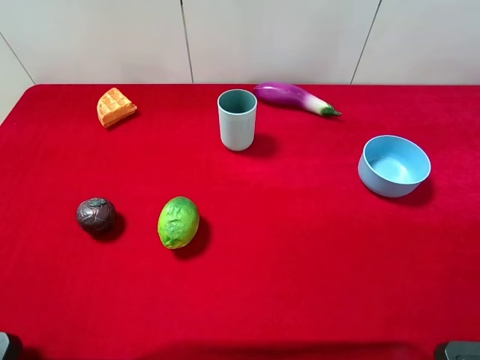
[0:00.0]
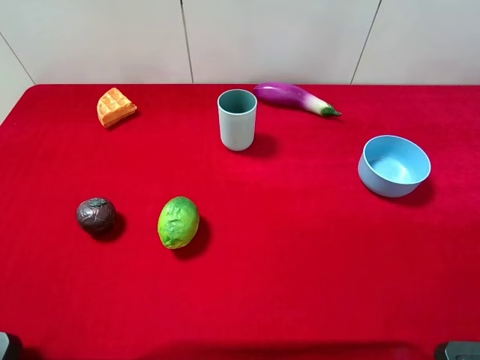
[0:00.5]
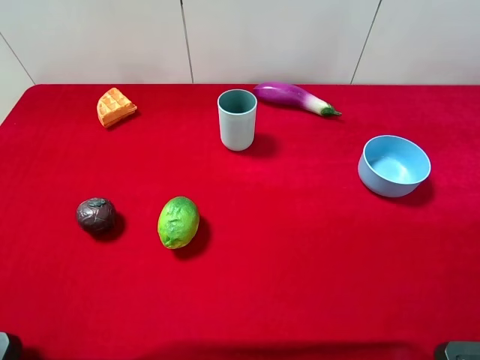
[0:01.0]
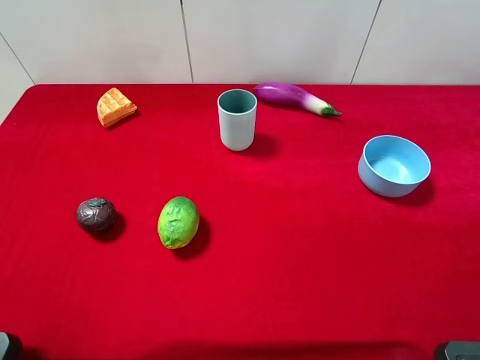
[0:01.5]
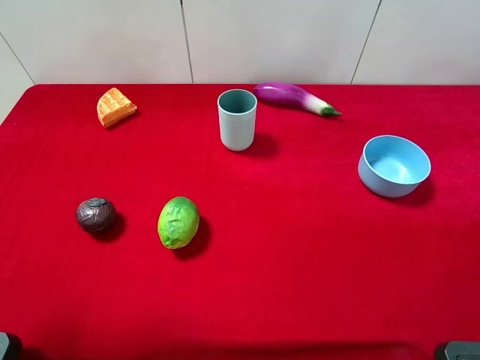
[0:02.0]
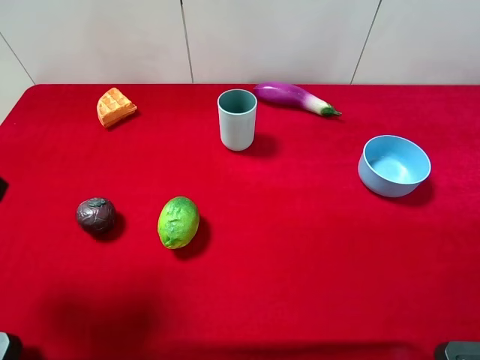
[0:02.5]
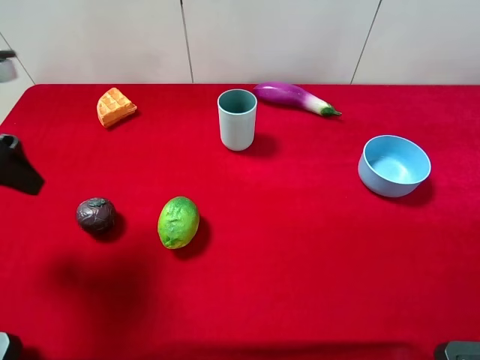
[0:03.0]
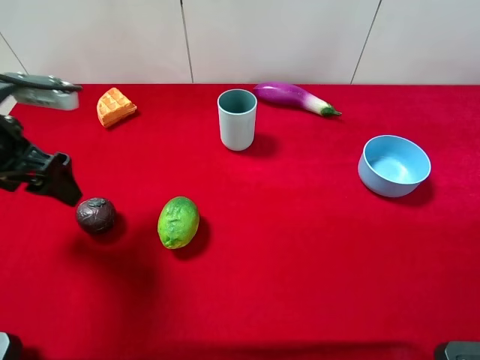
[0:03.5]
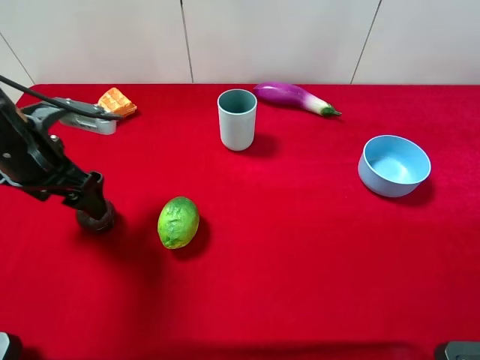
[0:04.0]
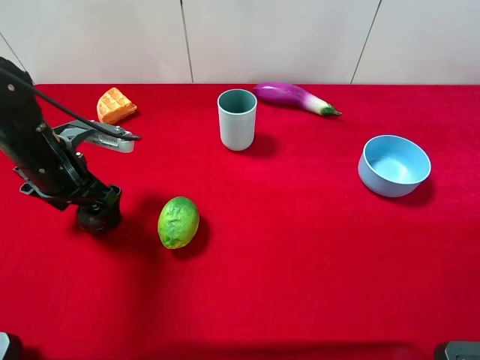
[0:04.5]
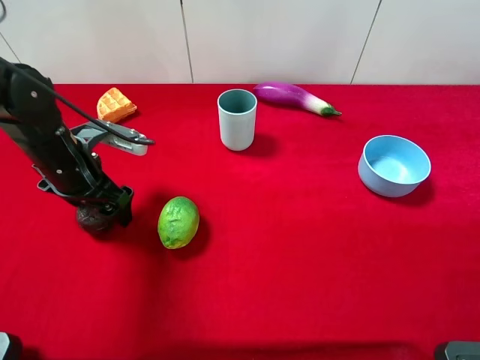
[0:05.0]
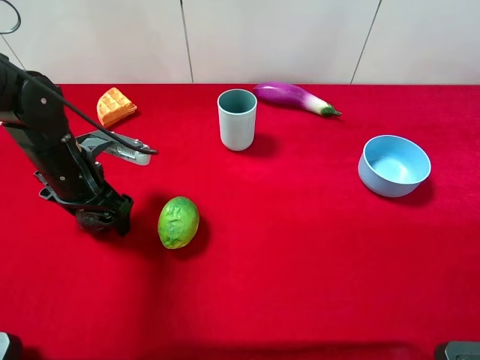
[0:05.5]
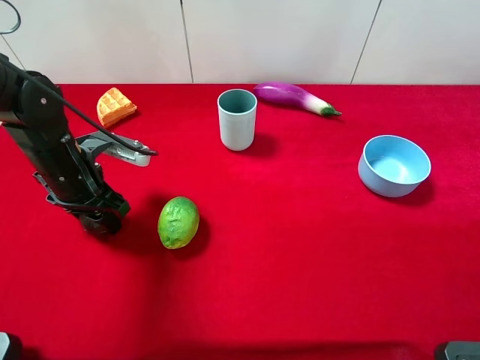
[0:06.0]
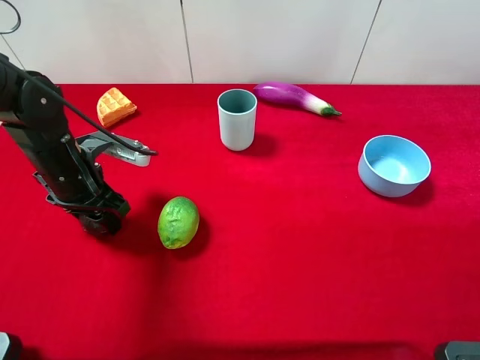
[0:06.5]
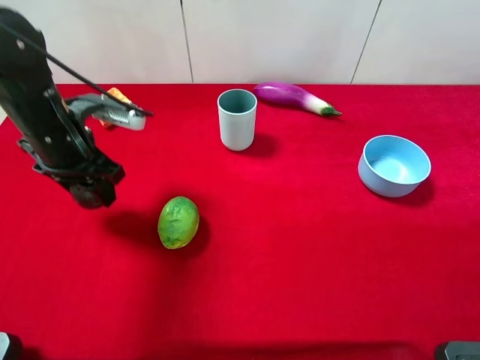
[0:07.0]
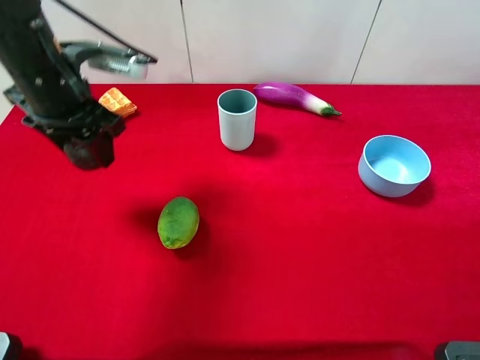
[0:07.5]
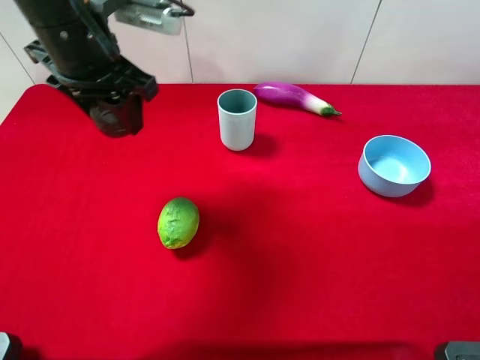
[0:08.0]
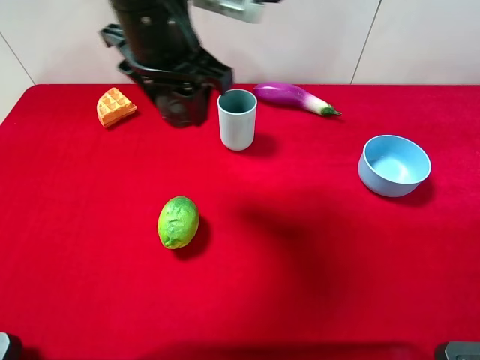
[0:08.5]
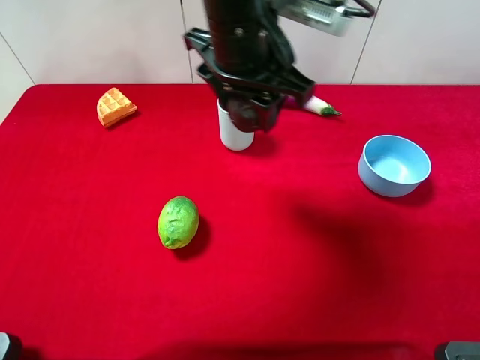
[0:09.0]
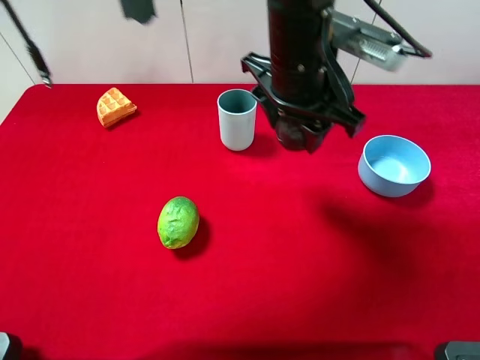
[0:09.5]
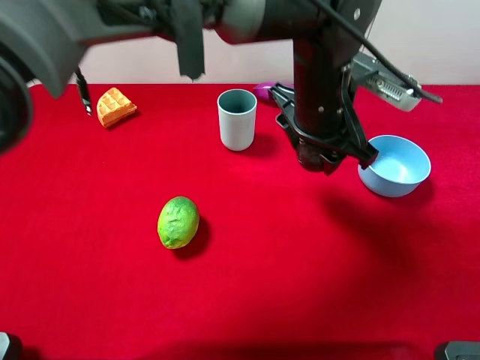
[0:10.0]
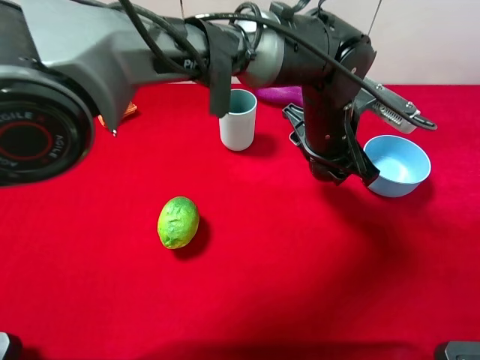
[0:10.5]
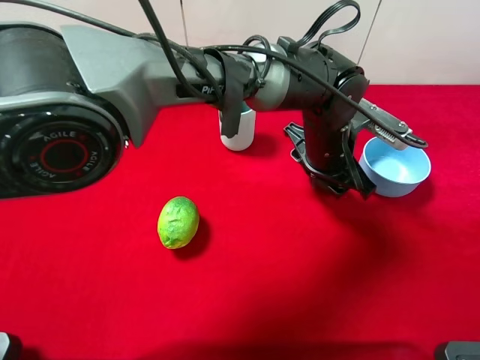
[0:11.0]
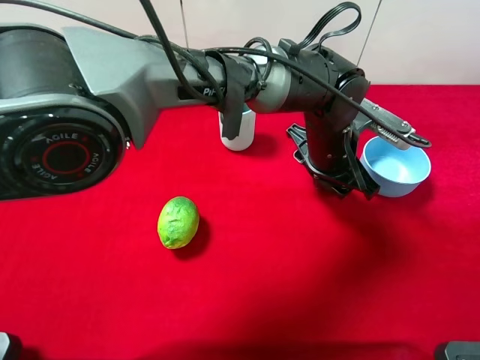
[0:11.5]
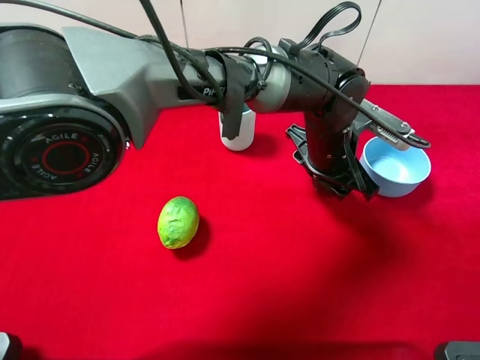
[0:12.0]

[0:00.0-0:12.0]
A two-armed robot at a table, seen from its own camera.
Task of the whole recording: the gripper move the object.
Step, 0.0 to 6.0 s: Grasp the mangosteen with the left gripper.
2.0 to 4.0 s: The left gripper goes roughly 20 cm forward and downward.
4.0 to 6.0 s: The left gripper travels downward by roughly 5 cm, and closes.
6.0 to 8.0 s: The left gripper travels upward and to the right by roughly 20 cm.
8.0 to 10.0 s: The left gripper heads to the right, covering approximately 25 cm.
10.0 to 12.0 s: The left gripper is displaced downward by some 10 cm.

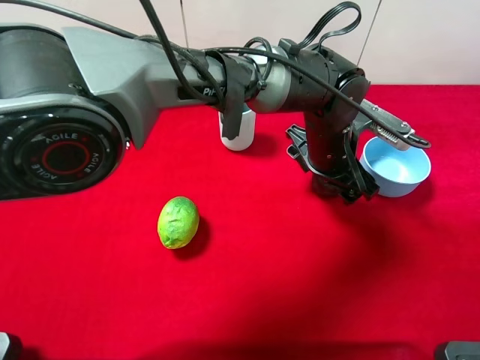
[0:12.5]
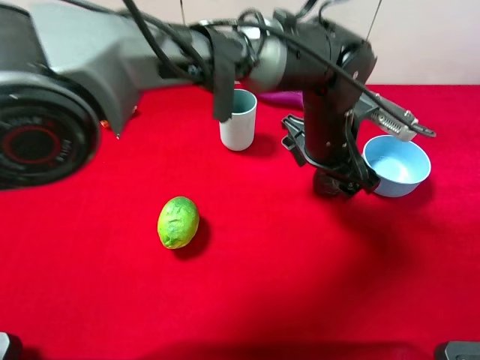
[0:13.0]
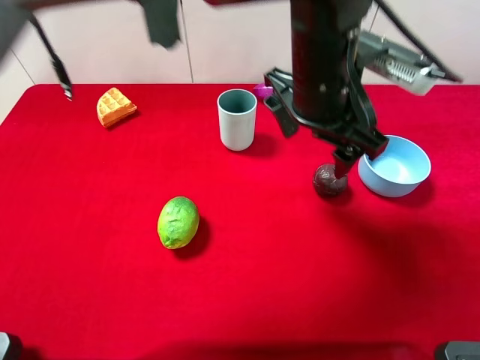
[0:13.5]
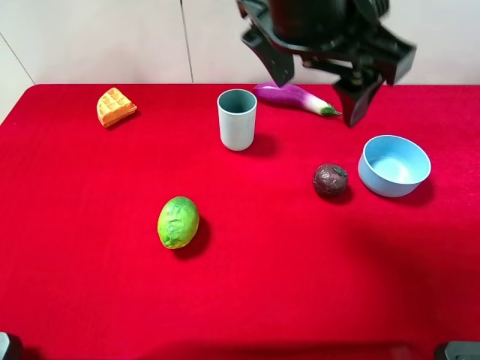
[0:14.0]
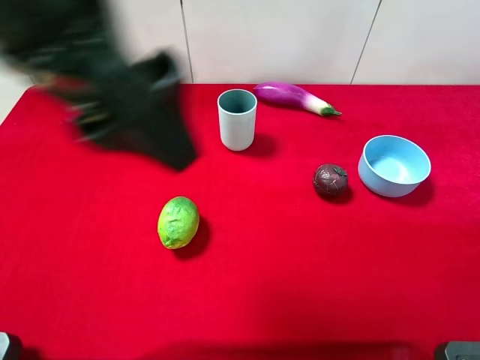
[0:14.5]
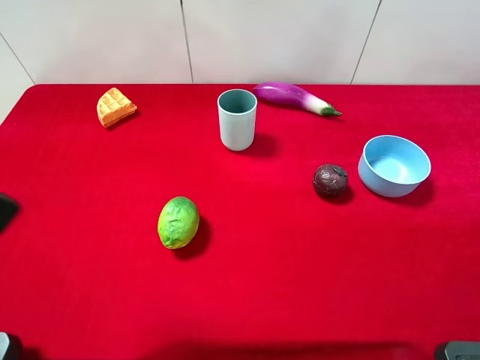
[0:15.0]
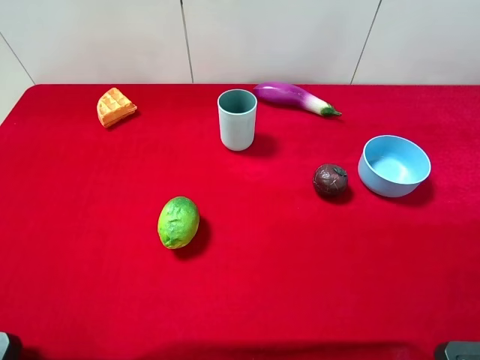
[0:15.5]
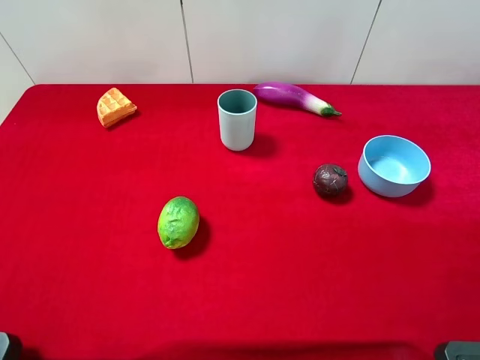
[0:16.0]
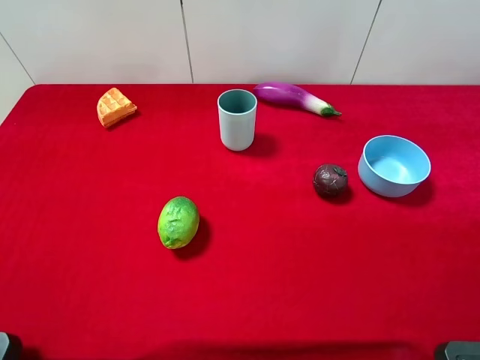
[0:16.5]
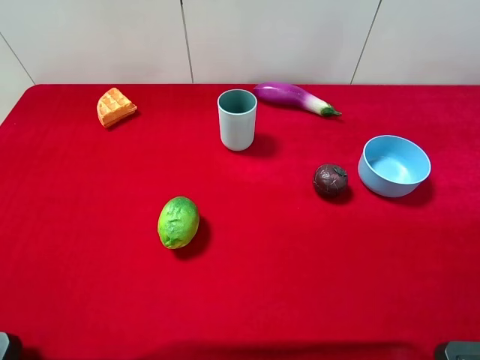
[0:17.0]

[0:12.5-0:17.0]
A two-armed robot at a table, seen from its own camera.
Task of the whole recording: the gripper move the object.
12.5 to 14.5 s: The left gripper is displaced upward, to the left and backward by some 35 cm.
14.5 to 17.0 s: The left gripper moves to the left, backward and downward, about 25 cm.

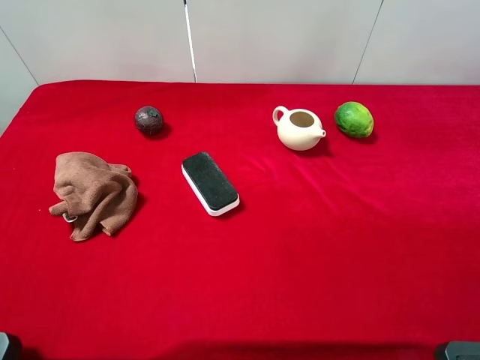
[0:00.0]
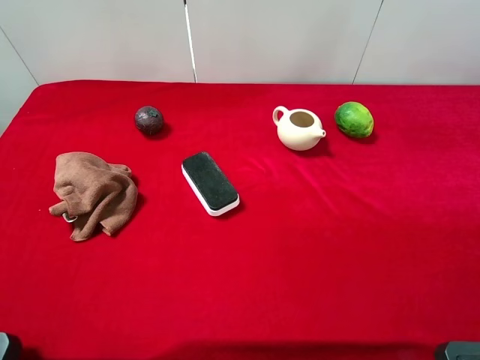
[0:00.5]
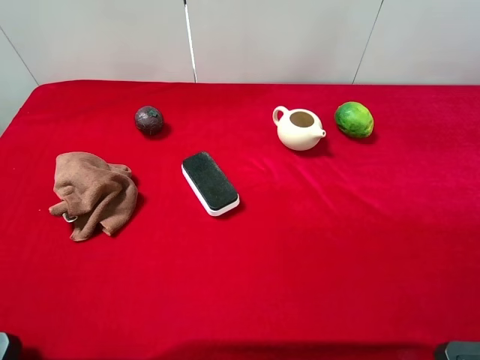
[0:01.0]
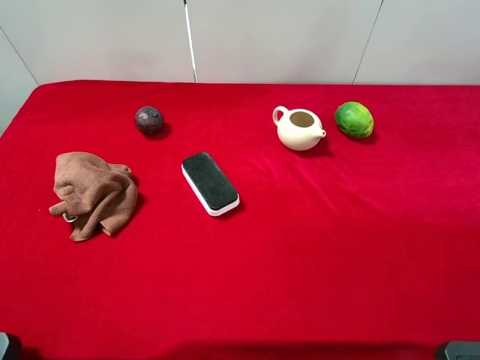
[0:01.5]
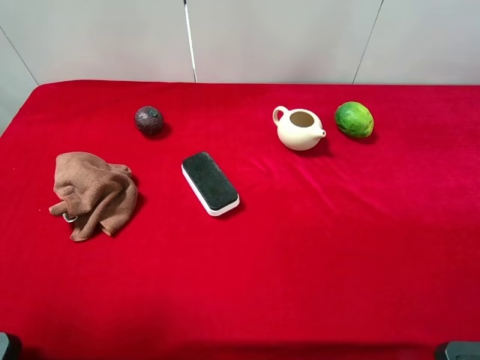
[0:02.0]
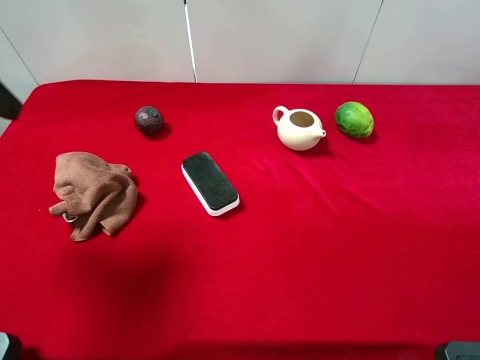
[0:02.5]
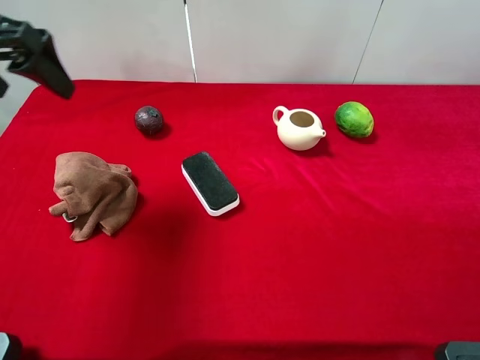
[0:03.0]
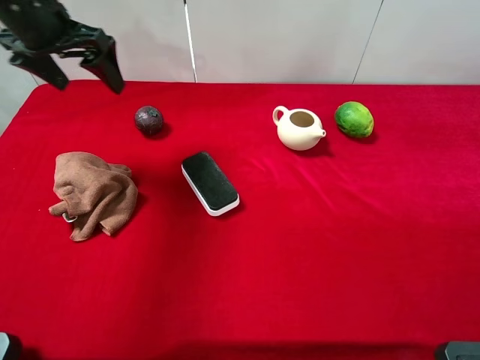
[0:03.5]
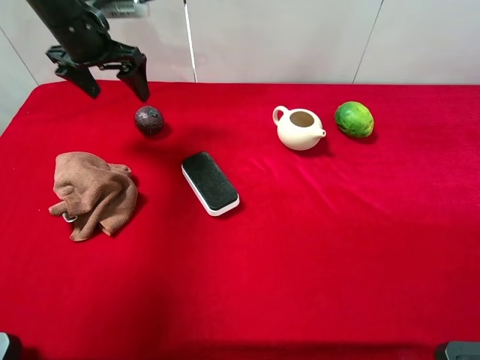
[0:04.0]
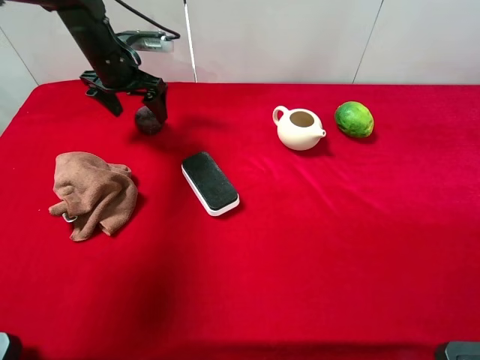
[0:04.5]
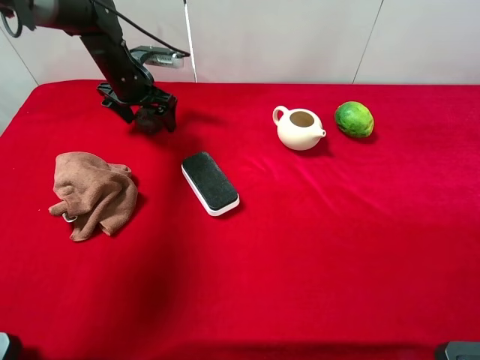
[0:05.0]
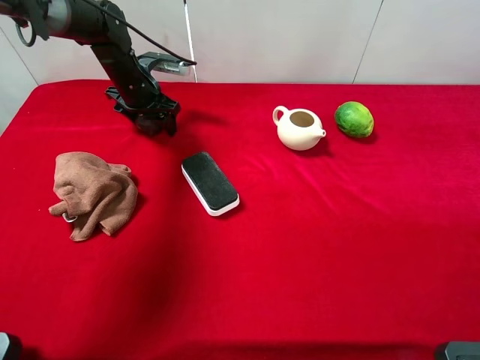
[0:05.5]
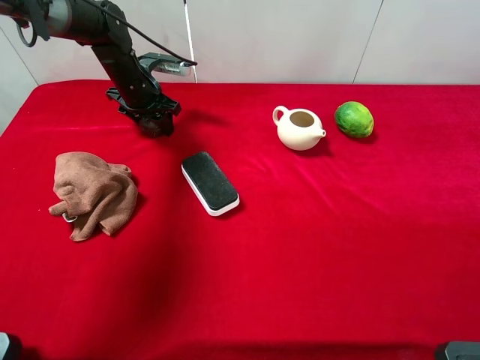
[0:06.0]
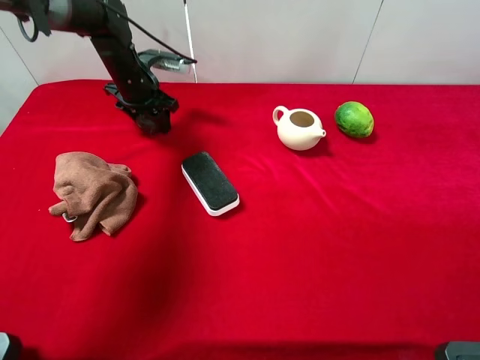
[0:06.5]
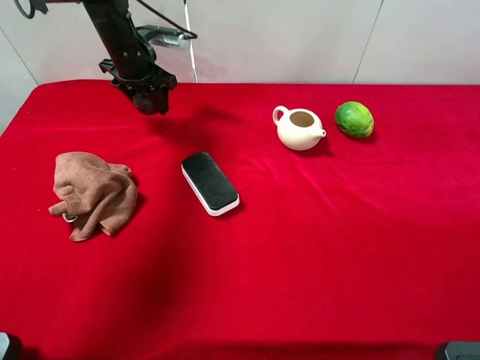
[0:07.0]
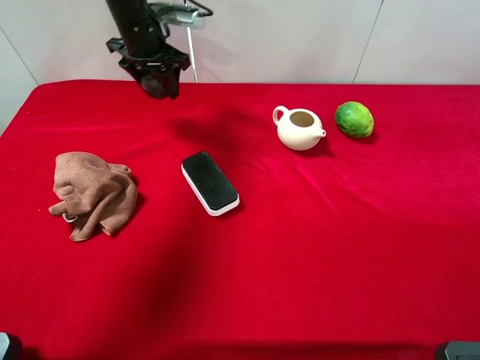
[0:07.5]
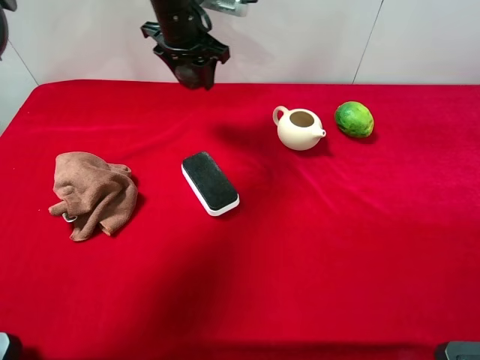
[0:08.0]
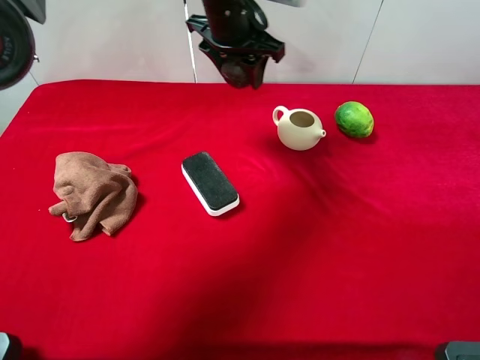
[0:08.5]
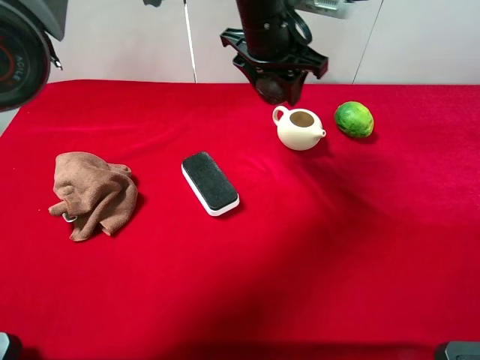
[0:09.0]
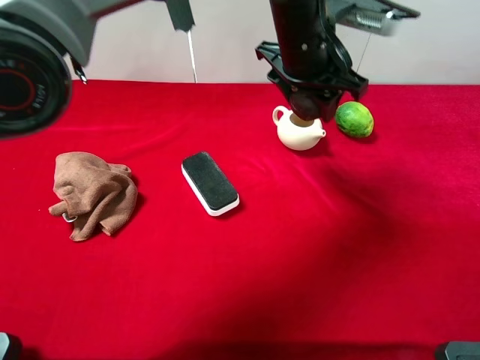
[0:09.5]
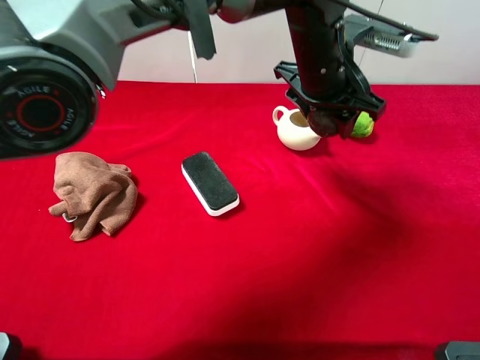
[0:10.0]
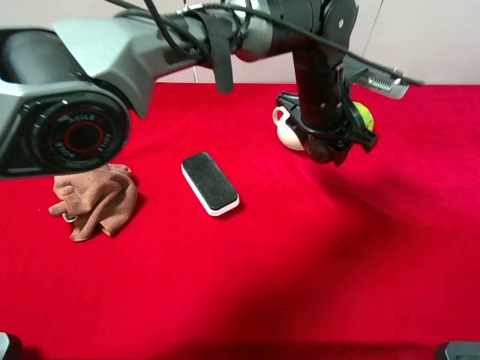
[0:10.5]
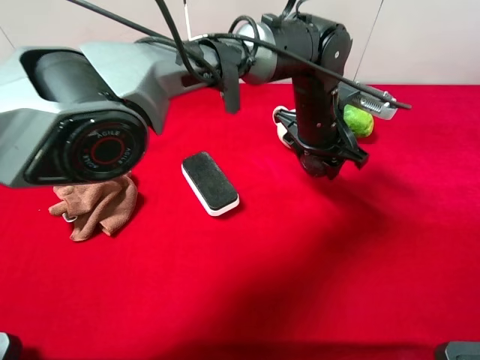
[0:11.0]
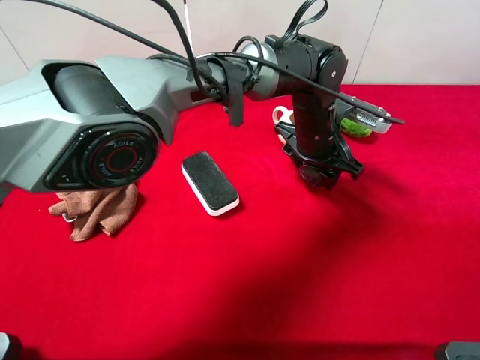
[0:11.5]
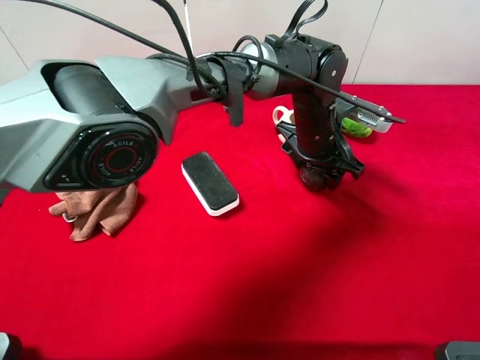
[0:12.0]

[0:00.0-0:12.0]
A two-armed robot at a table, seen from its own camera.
Task of the whole recording: the gripper move the object.
Step, 0.0 to 5.5 s: Grasp the mangosteen with the left gripper.
2.0 to 4.0 s: The left gripper travels forward by approximately 30 cm.
4.0 to 6.0 s: The left gripper is displaced downward by about 10 cm, and closes its fingers.
6.0 to 8.0 s: The left gripper moves upward and to the right, approximately 15 cm.
8.0 to 10.0 s: The left gripper moves to the right and backward, roughly 20 cm.
10.0 to 12.0 s: The left gripper moves downward, about 10 cm.
